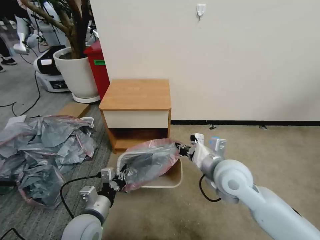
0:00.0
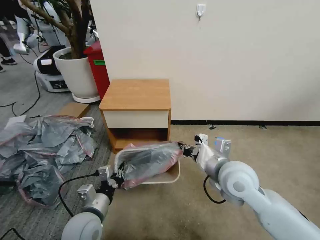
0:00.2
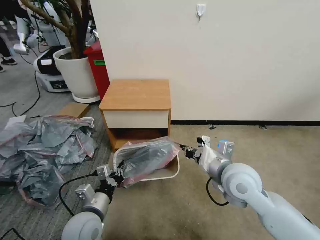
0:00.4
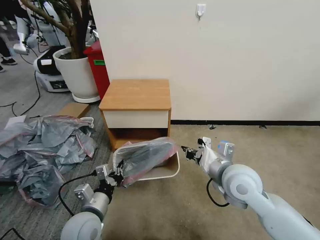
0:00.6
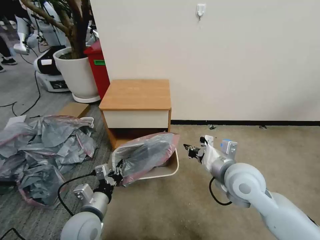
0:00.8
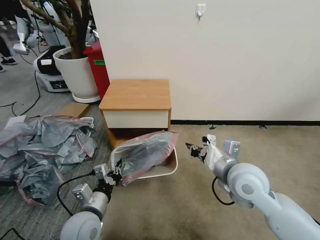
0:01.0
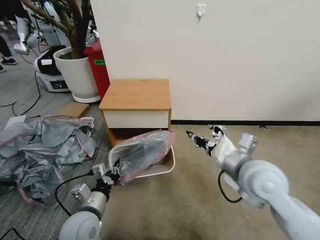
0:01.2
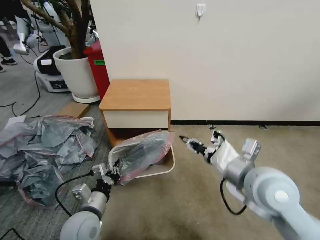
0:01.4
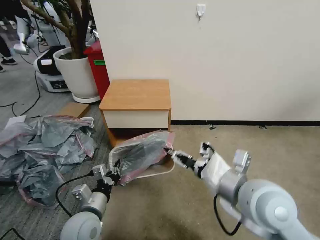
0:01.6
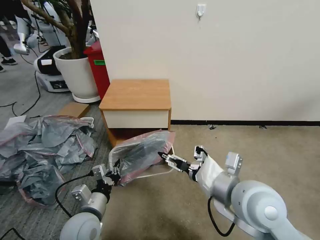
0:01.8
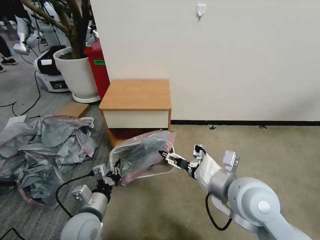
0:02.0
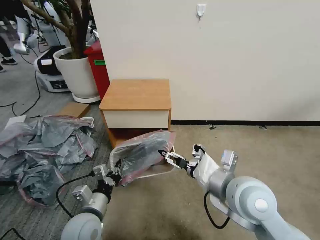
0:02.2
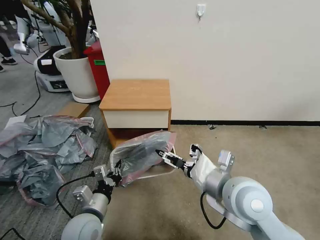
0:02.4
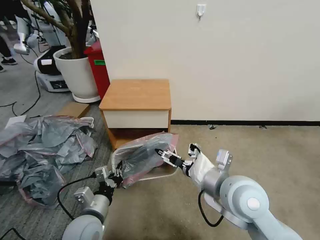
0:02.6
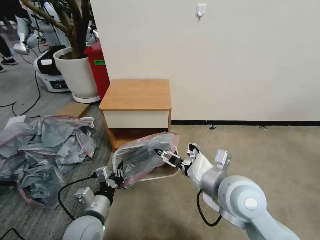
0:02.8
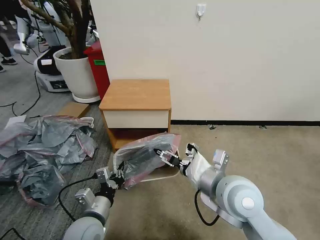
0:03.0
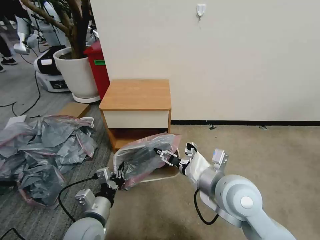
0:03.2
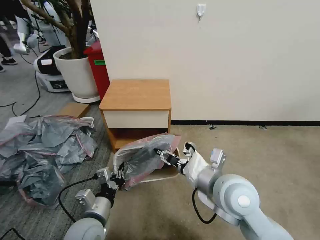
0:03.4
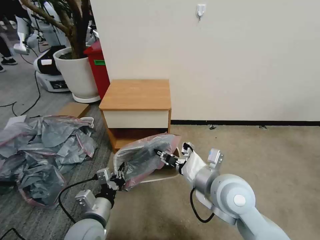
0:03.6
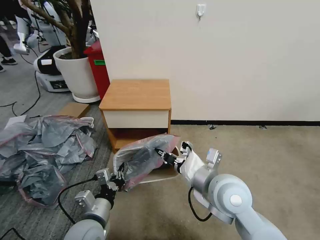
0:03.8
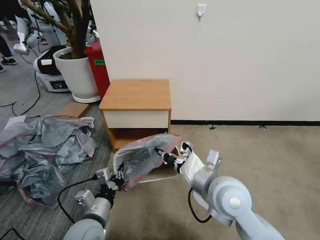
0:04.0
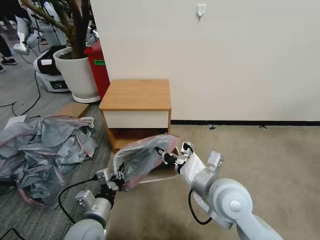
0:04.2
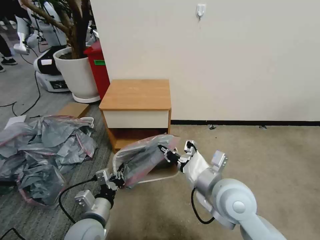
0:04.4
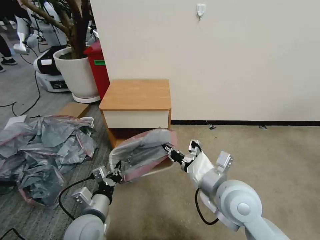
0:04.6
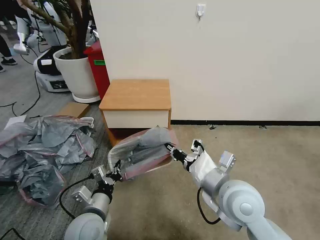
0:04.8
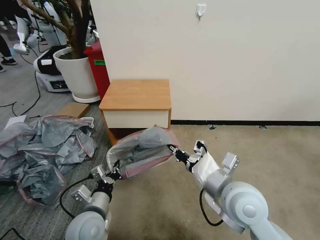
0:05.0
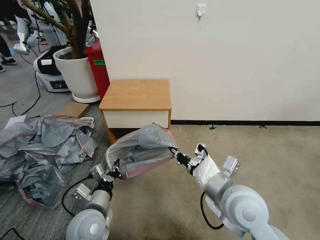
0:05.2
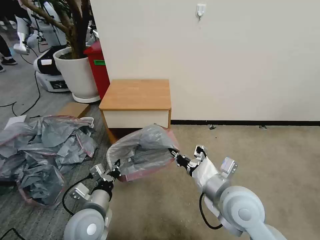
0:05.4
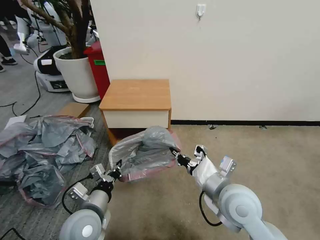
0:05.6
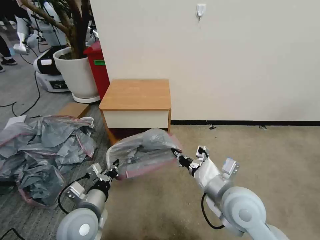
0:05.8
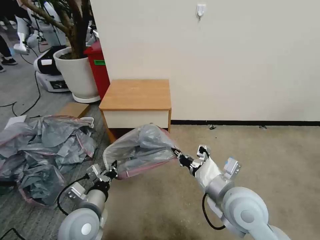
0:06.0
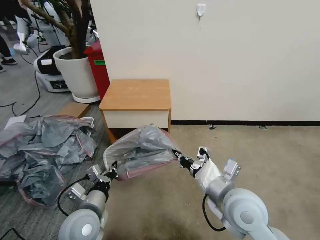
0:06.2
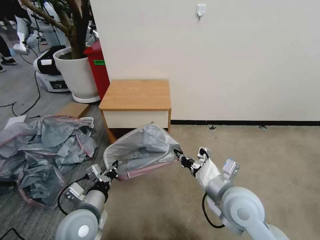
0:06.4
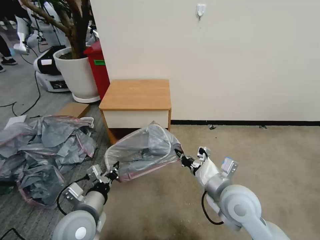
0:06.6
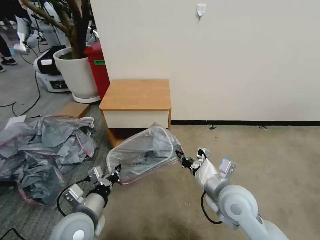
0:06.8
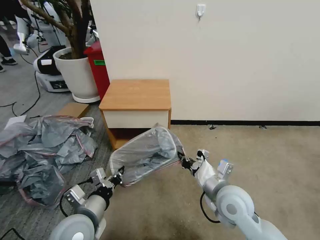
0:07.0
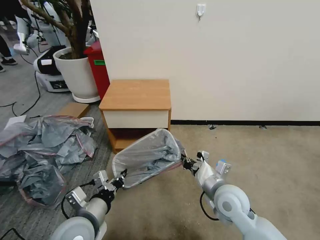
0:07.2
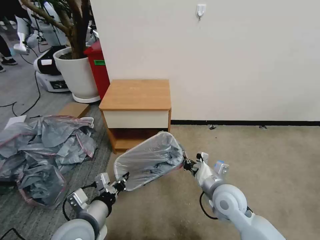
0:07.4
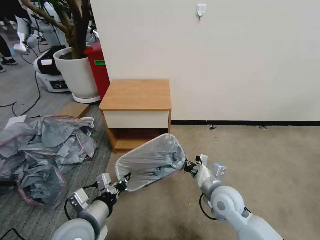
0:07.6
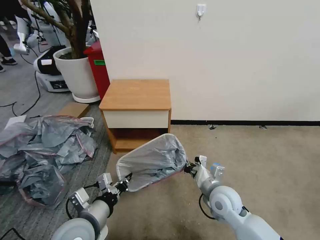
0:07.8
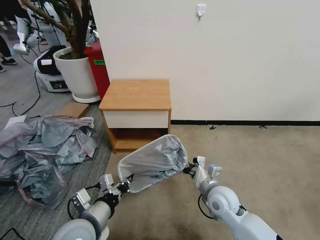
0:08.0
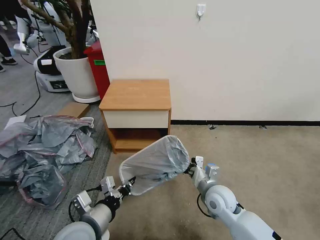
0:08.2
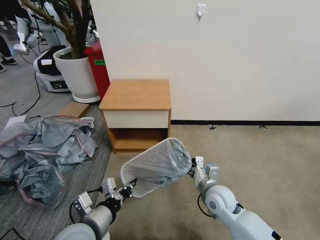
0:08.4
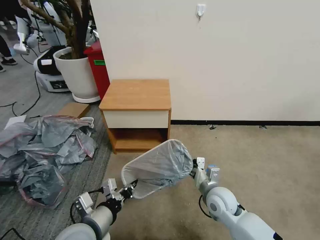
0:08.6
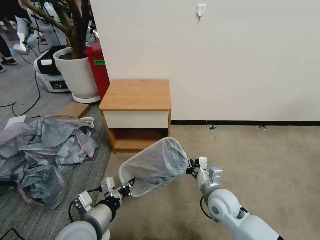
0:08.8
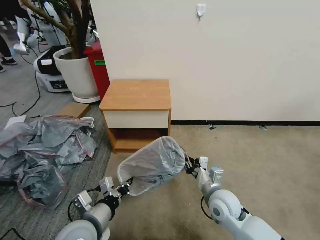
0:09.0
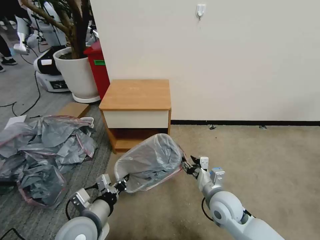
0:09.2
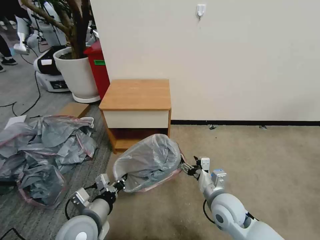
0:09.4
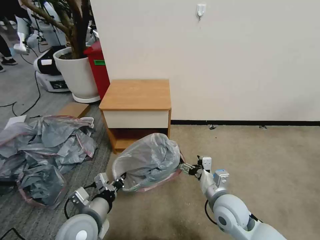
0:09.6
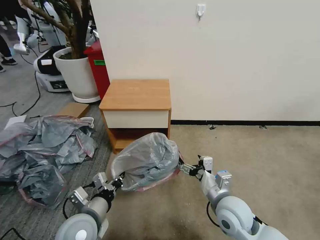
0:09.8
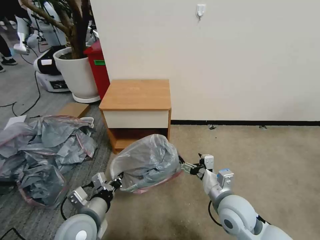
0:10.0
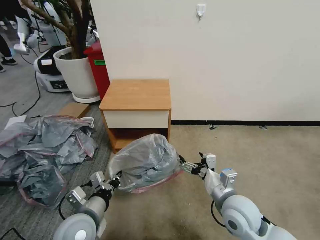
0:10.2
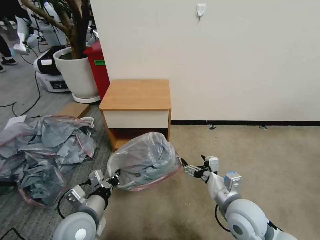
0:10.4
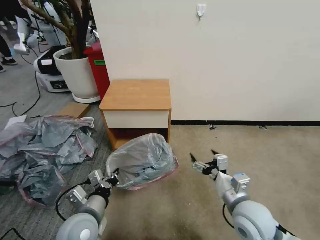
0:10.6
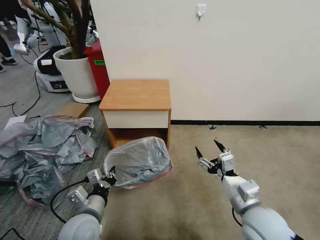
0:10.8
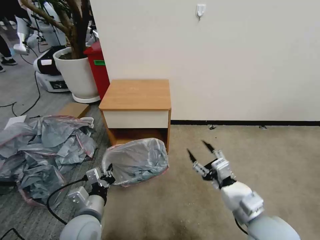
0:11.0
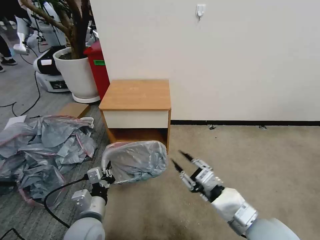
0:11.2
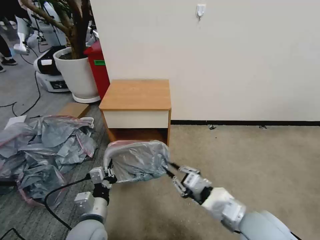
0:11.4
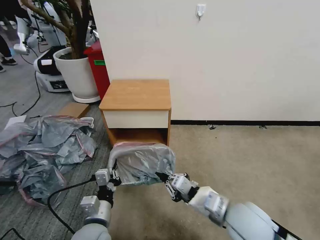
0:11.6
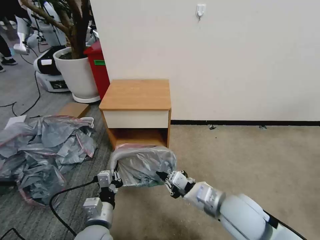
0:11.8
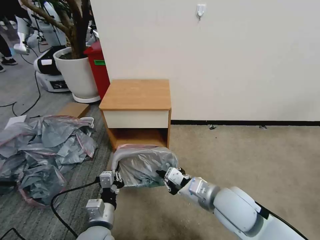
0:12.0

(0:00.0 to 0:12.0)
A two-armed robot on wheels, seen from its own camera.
Task of the whole recording: Pick up the garbage bag from the table and place it over the trash can.
0:00.0 - 0:01.6: The right gripper shifts some 10 cm backward and upward, and opens.
0:01.6 - 0:03.0: The right gripper ends up about 5 cm from where it was.
0:03.0 - 0:04.4: The right gripper closes.
0:04.4 - 0:06.0: The grippers make only small movements.
0:06.0 - 0:07.6: The right gripper shifts approximately 10 cm downward.
0:07.6 - 0:09.0: The grippers make only small movements.
0:09.0 - 0:10.4: The right gripper shifts roughly 10 cm upward and backward, and opens up.
0:10.4 - 0:12.0: The right gripper moves upward, about 5 cm, and closes up, while the left gripper heads downward, covering about 5 cm.

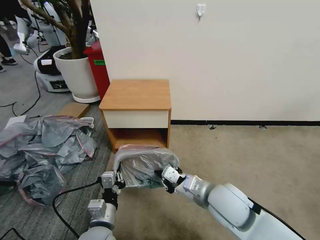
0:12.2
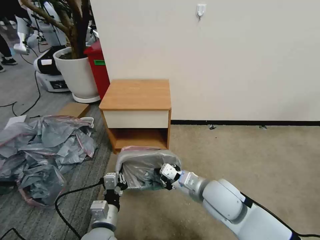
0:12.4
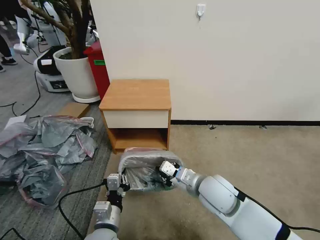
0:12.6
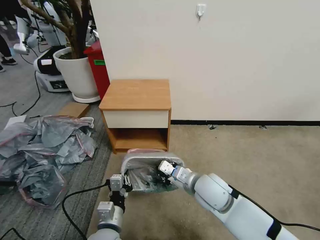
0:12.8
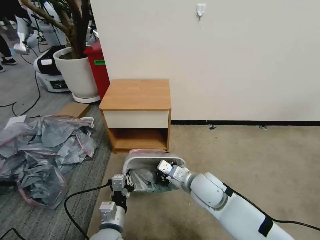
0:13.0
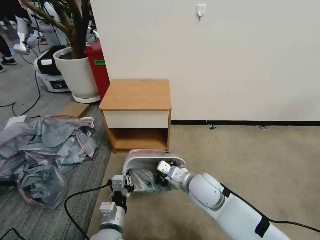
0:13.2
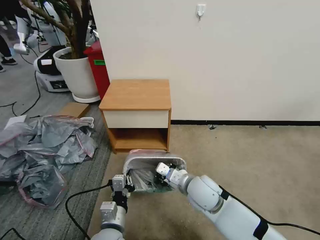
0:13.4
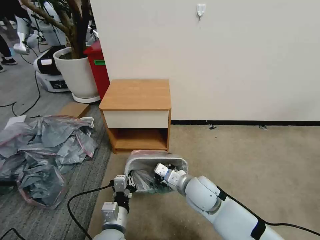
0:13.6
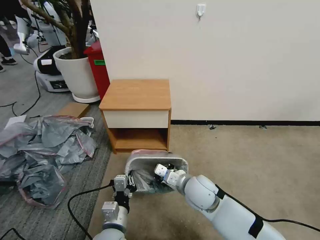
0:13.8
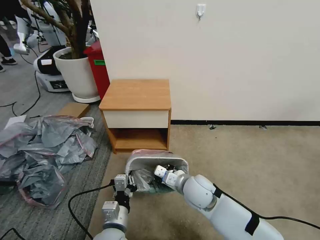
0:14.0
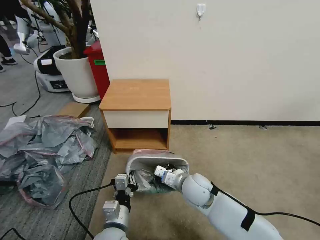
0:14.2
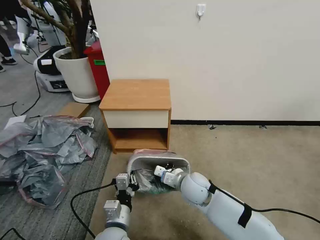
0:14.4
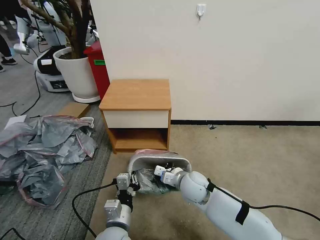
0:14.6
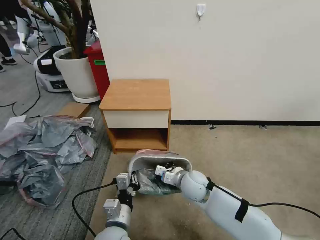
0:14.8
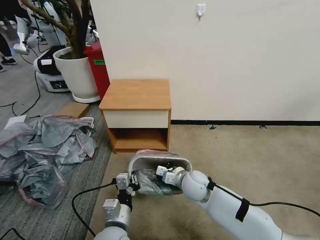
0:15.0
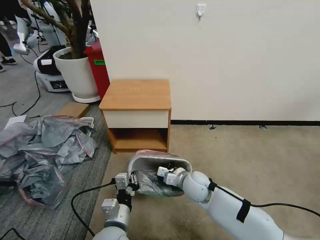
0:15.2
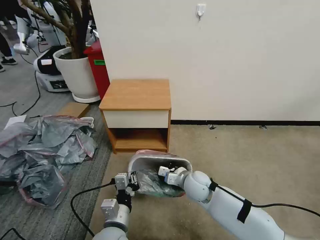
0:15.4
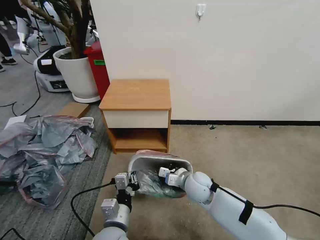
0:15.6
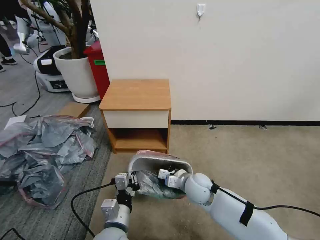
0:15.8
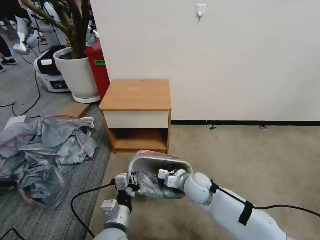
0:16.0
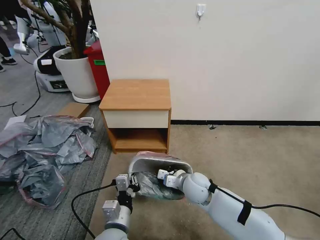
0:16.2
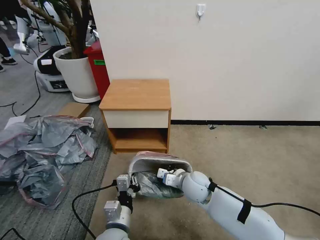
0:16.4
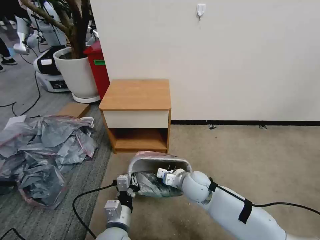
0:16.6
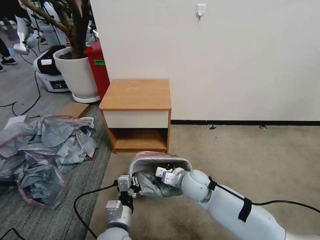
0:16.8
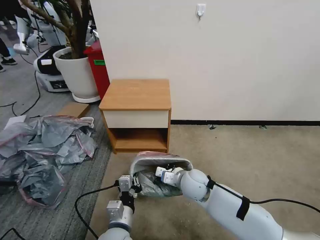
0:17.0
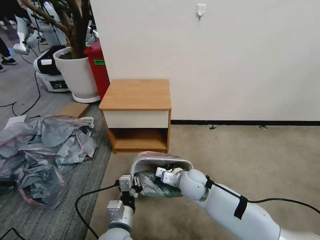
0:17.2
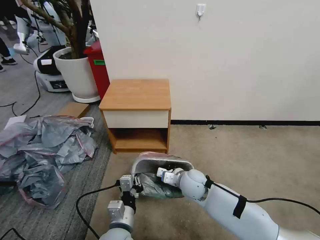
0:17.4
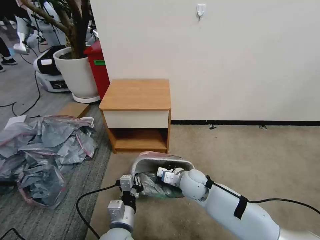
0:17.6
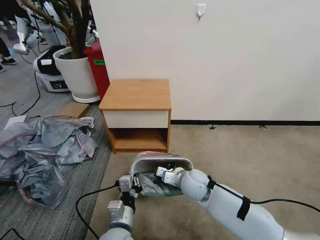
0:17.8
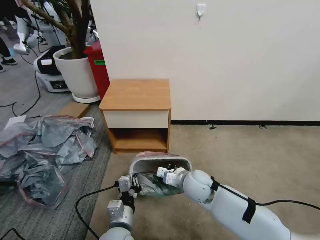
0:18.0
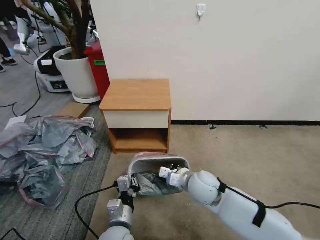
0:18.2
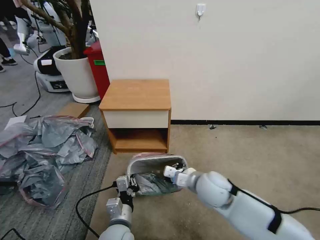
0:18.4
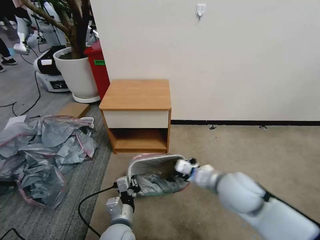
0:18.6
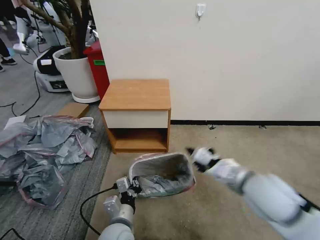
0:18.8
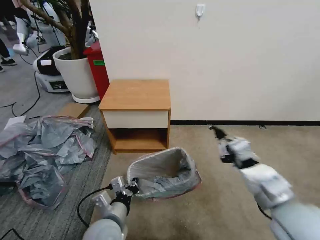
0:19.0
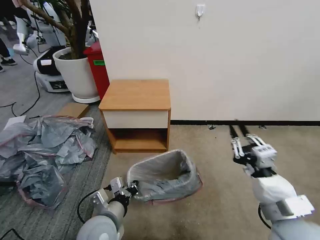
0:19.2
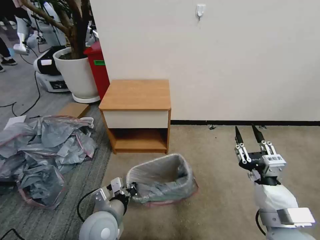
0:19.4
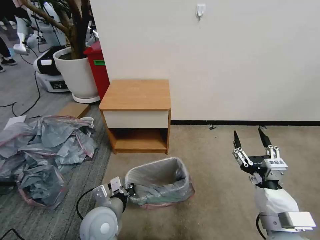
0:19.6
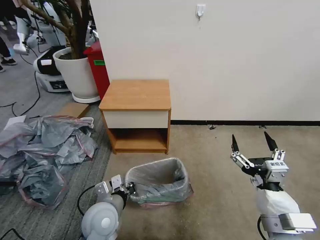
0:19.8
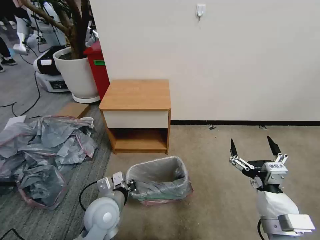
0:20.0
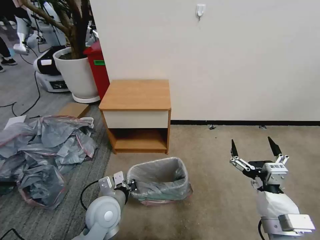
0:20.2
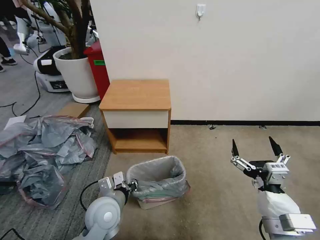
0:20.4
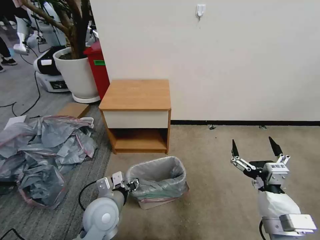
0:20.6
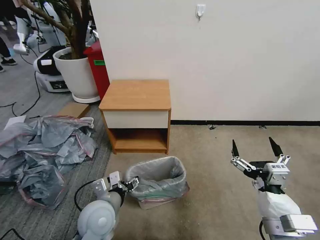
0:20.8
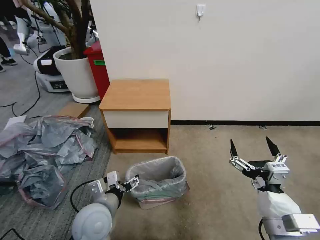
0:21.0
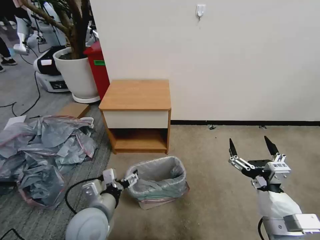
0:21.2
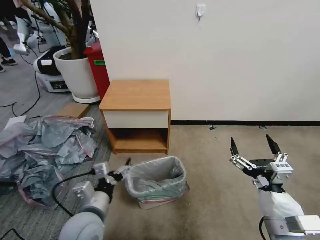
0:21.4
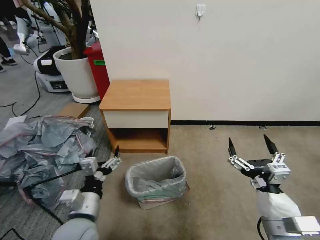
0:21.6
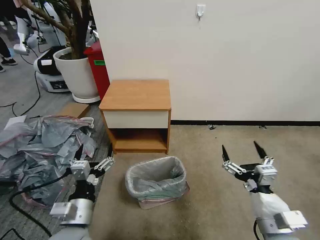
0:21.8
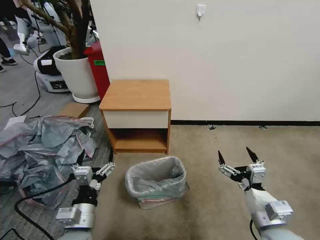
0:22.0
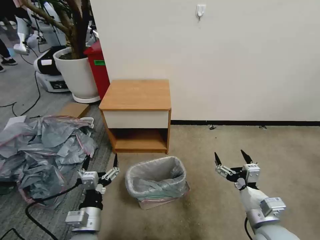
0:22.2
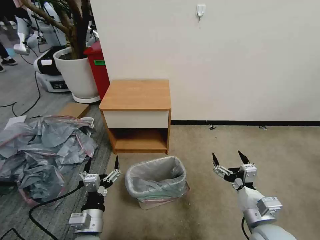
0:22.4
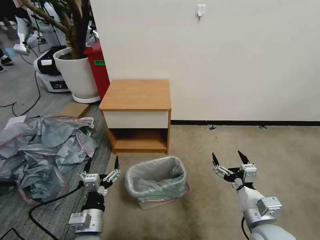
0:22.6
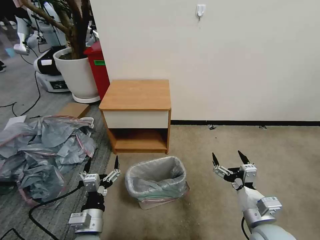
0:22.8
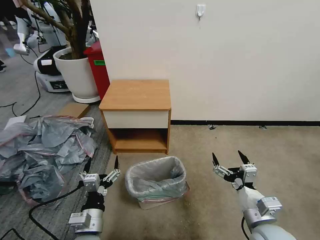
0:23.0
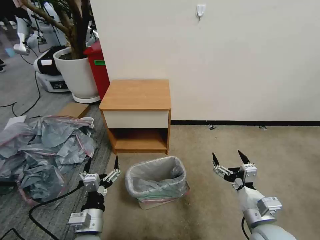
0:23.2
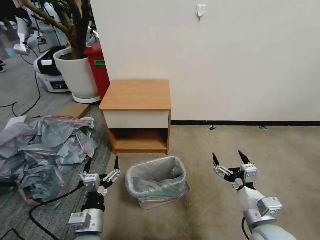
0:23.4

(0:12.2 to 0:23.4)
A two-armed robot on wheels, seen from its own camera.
Task of the whole recording: Pick up the garbage bag from the table and place it over the trash can.
0:12.2 - 0:13.8: The right gripper is displaced downward and forward by approximately 10 cm.
0:13.8 - 0:15.4: The right gripper shifts some 5 cm downward.
0:15.4 - 0:17.0: The grippers move only a little.
0:17.0 - 0:18.6: The right gripper moves upward, to the right and backward, some 15 cm.
0:18.6 - 0:20.2: The right gripper is displaced backward and to the right by approximately 15 cm, and opens up; the left gripper goes approximately 10 cm upward and forward.
0:20.2 - 0:21.8: The left gripper goes about 10 cm backward and to the left, and opens its fingers.
0:21.8 - 0:23.4: The left gripper goes about 5 cm downward.
